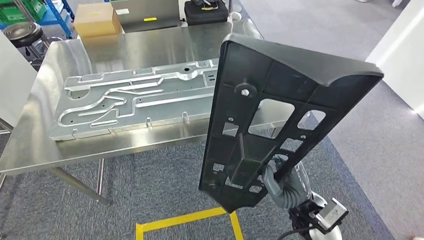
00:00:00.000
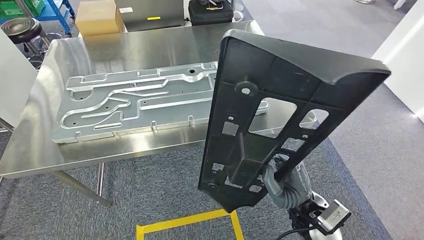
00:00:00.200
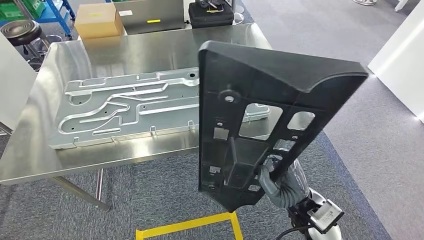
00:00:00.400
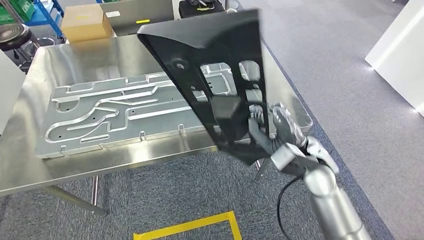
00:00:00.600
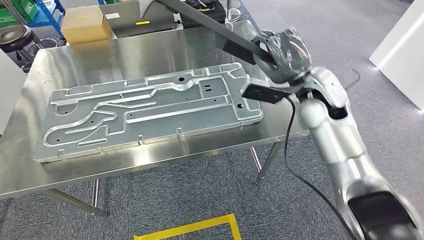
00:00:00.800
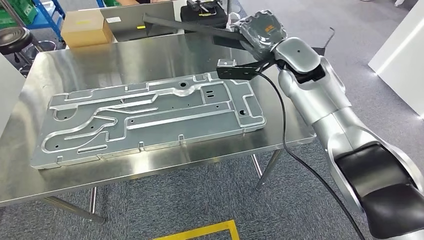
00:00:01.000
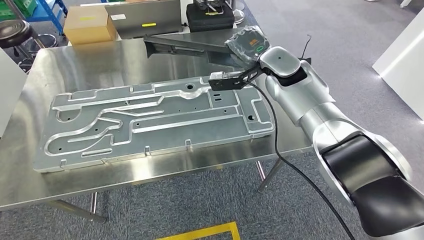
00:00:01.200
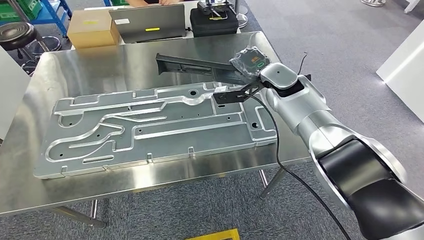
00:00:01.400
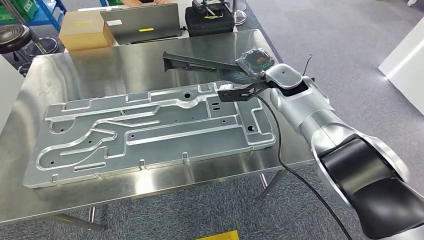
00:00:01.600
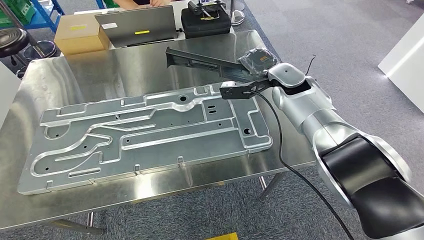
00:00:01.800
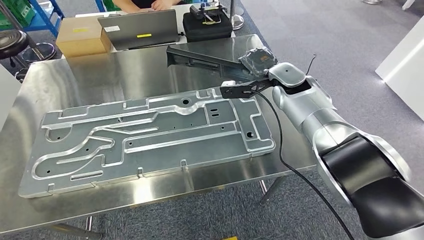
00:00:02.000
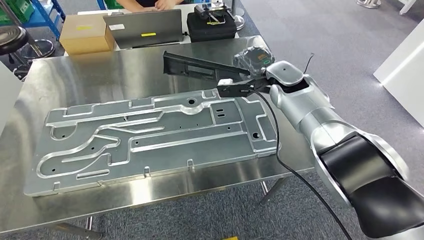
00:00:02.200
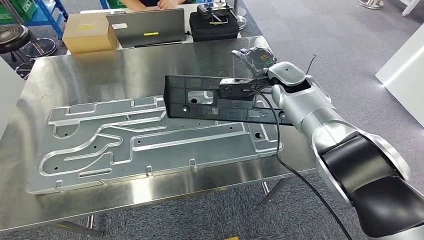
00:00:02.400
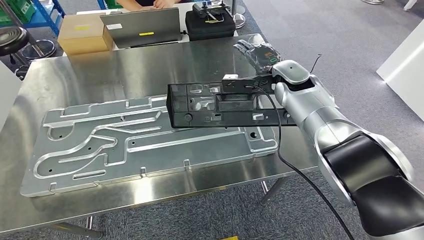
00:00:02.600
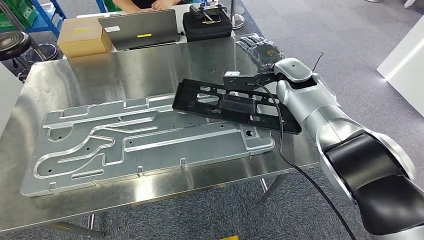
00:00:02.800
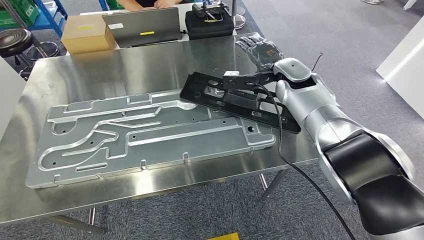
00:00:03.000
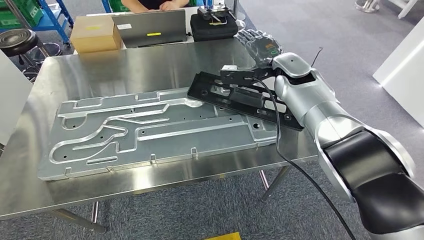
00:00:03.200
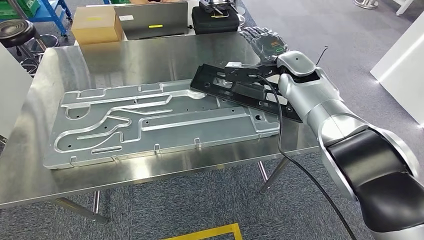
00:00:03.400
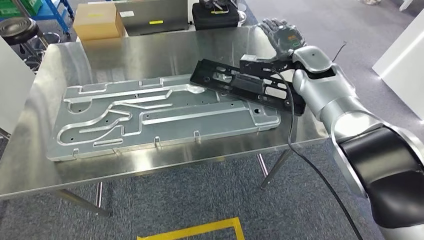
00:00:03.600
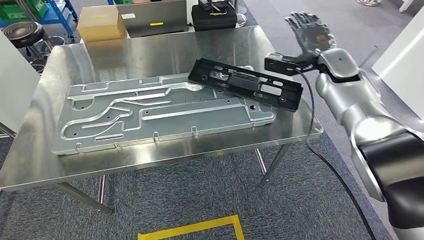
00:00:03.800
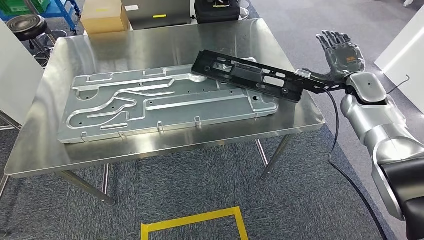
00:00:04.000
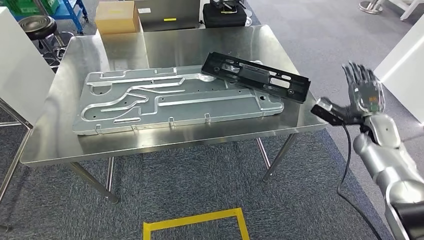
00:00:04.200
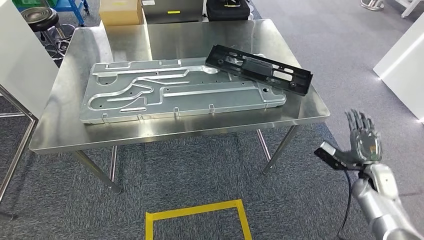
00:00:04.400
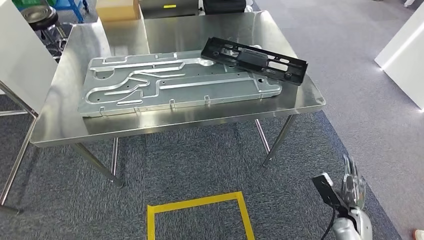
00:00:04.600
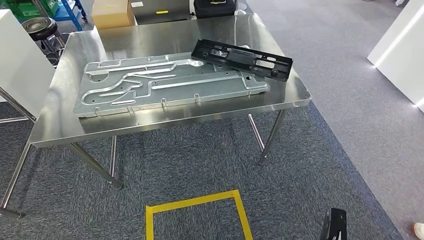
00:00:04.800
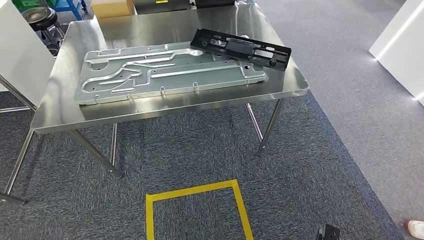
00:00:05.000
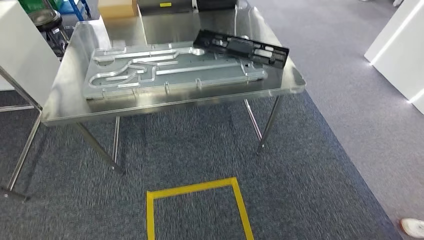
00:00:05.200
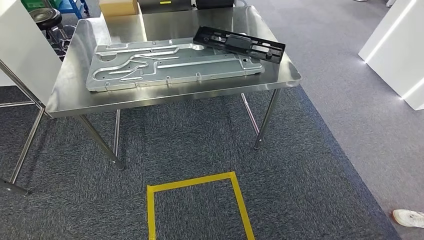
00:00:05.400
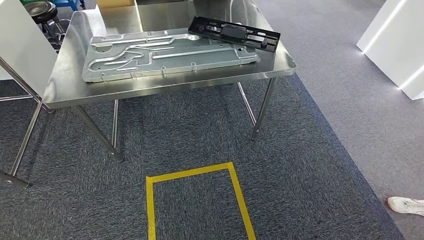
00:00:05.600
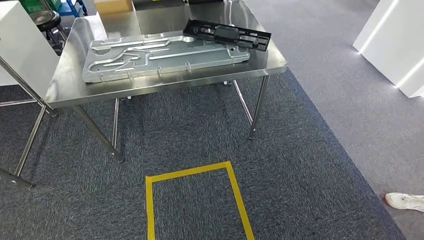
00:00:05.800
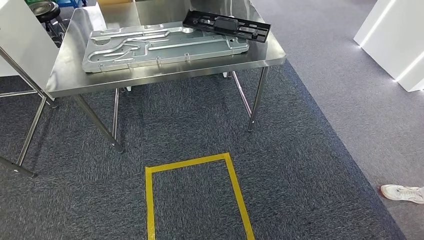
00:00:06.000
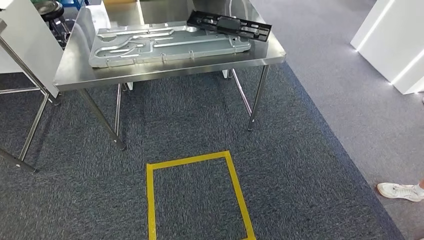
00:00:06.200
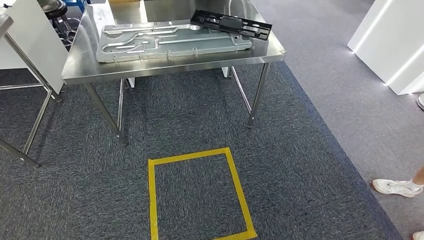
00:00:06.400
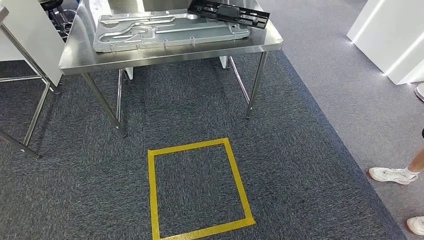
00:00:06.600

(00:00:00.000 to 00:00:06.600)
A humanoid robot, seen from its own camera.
Step, 00:00:00.000 - 00:00:03.000: Insert the large material into the corresponding slot on the workbench.
Step, 00:00:04.400 - 00:00:06.600: Move to the initial position of the shelf.
